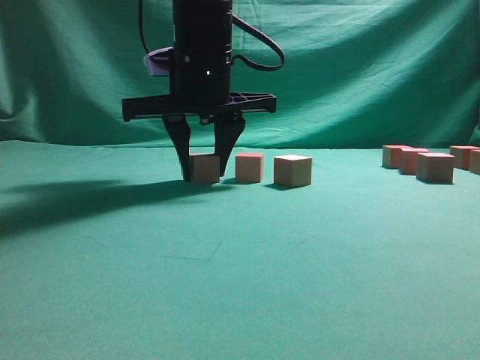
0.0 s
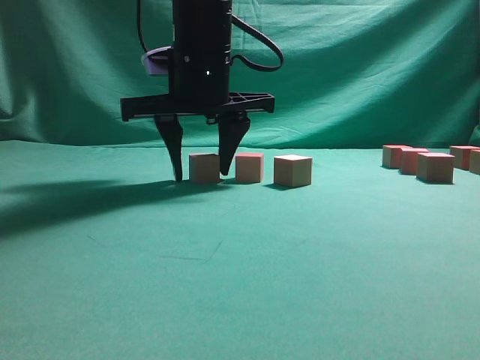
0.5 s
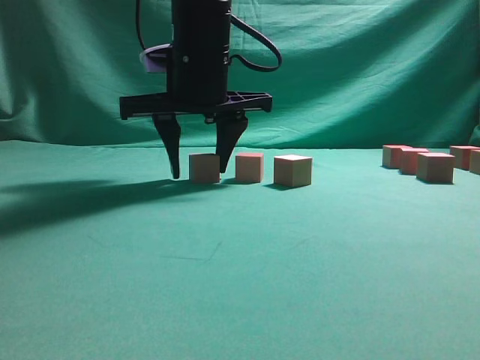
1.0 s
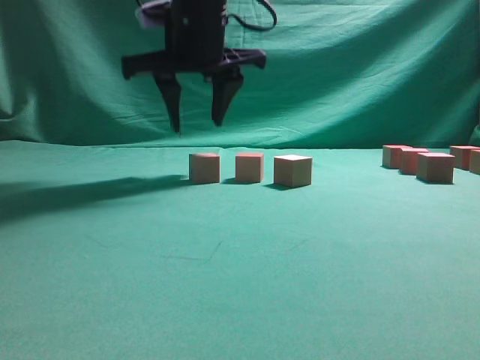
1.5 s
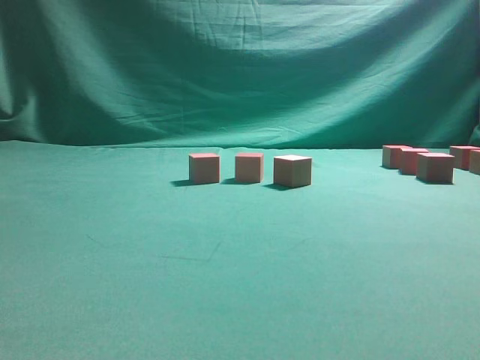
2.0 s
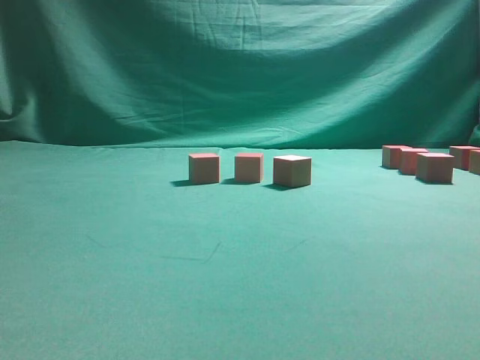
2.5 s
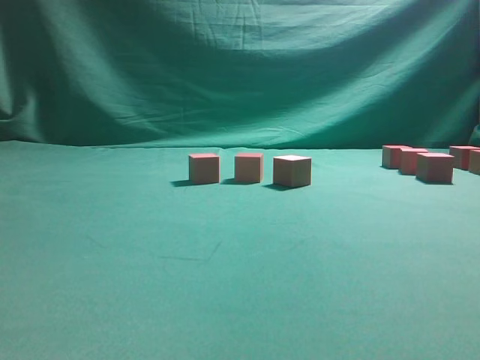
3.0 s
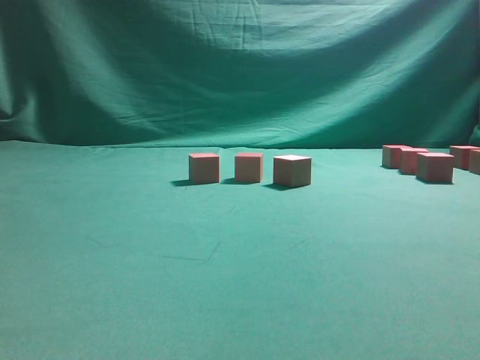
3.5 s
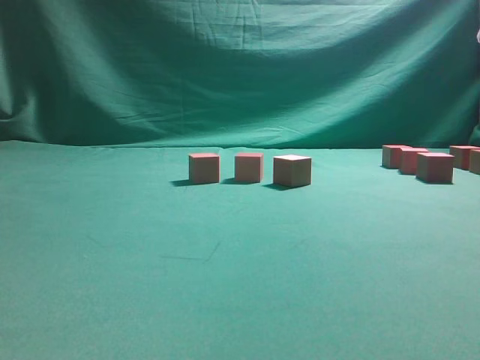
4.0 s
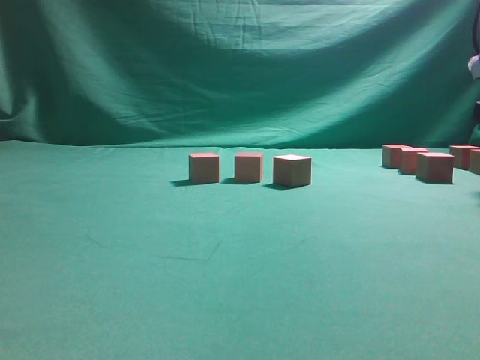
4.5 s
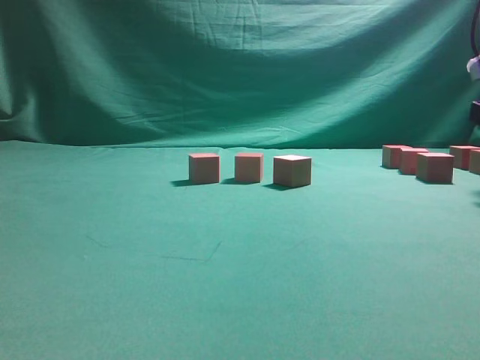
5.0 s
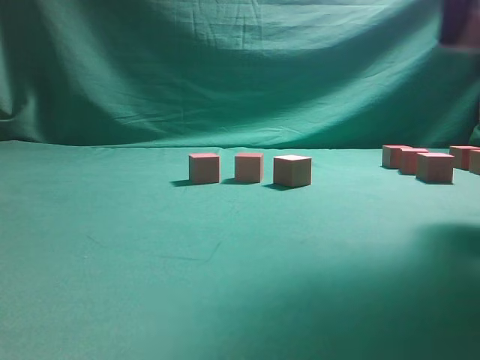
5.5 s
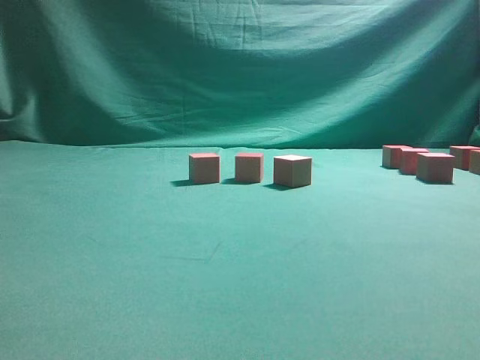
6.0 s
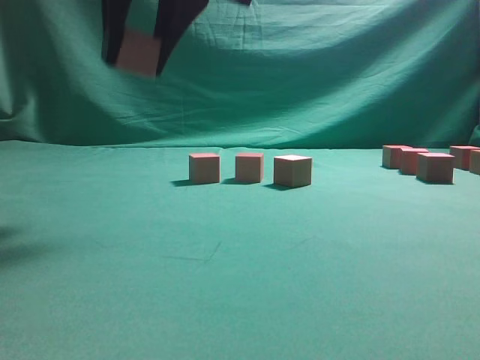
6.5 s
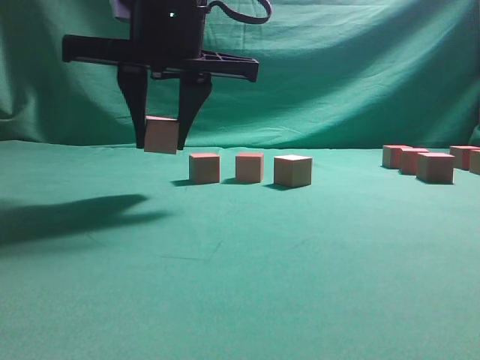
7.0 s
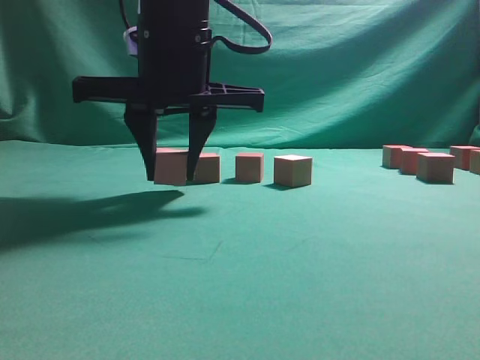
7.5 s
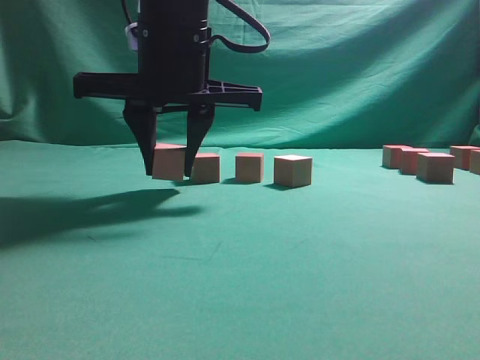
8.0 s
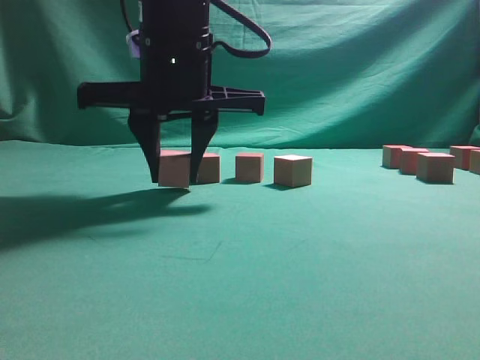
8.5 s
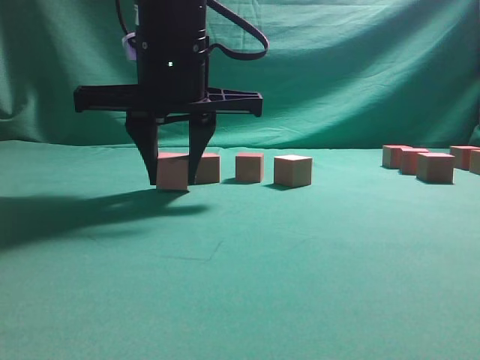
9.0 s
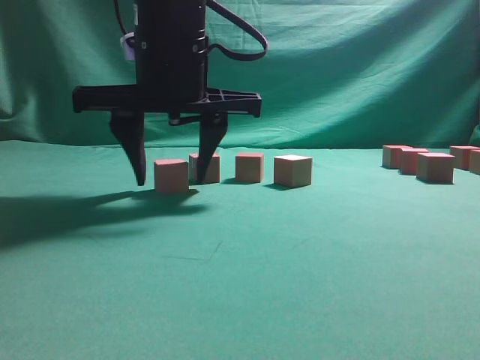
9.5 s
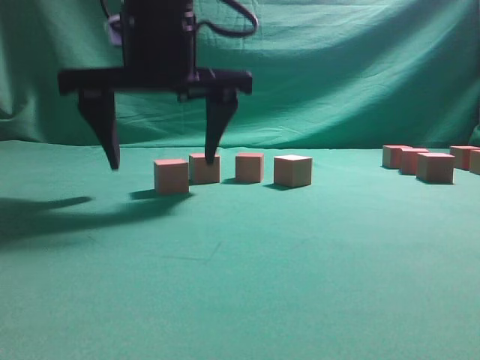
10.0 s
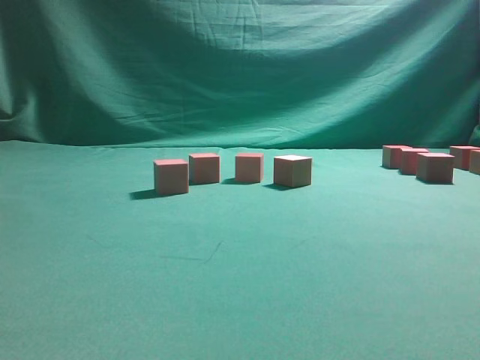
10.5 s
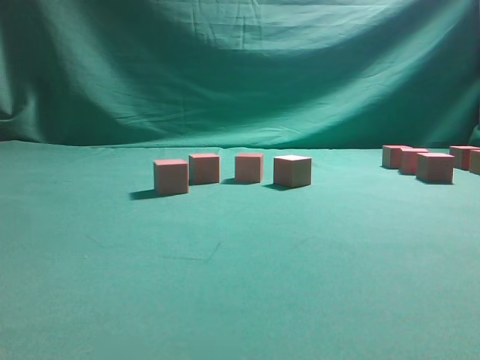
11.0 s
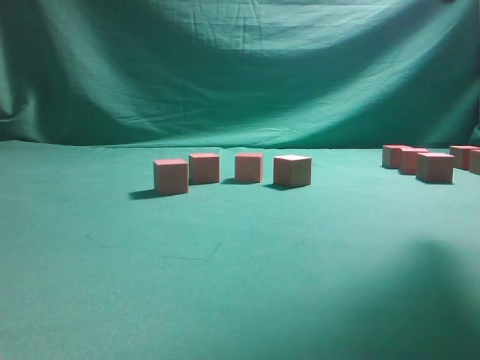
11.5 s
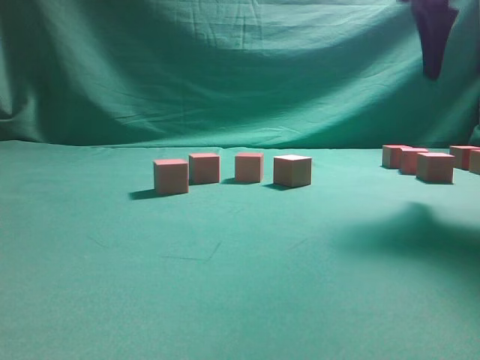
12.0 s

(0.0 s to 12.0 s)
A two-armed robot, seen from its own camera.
Task of the whole recording: pick up the multiple cubes in two columns one by one and place them in another position on the table.
Step, 5.5 s - 10.0 s: Place the block at the correct position to assemble the letter S.
0.0 s - 2.0 s: The right gripper shifts roughly 20 cm upward.
6.0 s - 8.0 s: The right gripper is displaced downward, forward and to the left by about 20 cm.
8.0 s - 10.0 s: The right gripper opens its fingers.
10.0 s - 12.0 s: The right gripper travels to the right by roughly 30 cm.

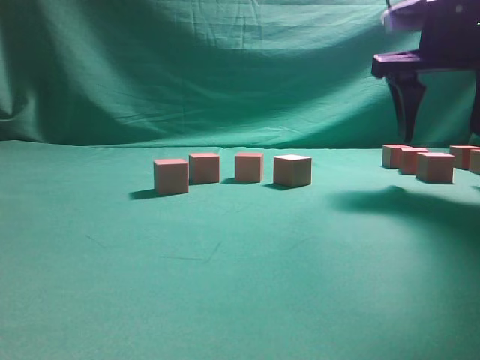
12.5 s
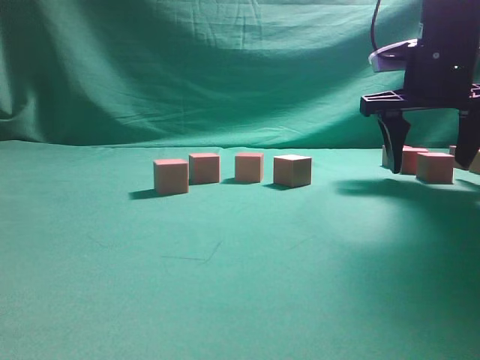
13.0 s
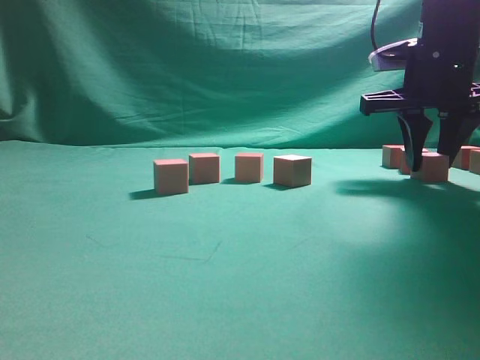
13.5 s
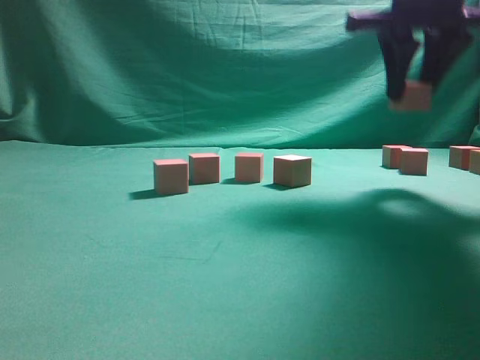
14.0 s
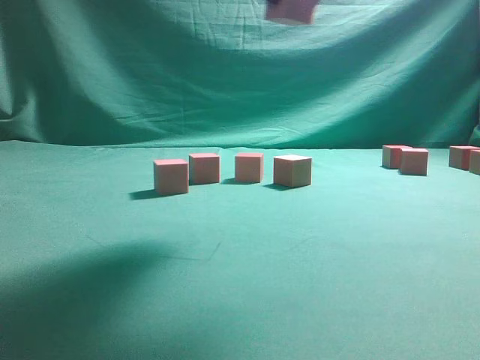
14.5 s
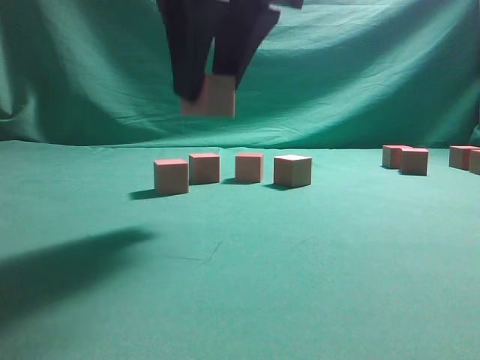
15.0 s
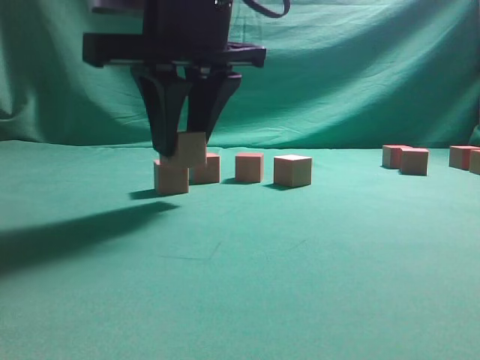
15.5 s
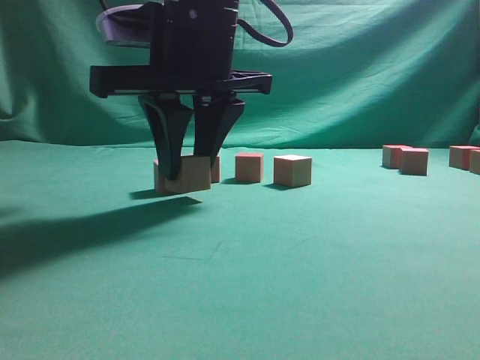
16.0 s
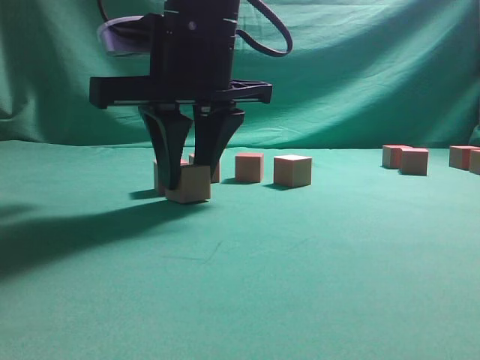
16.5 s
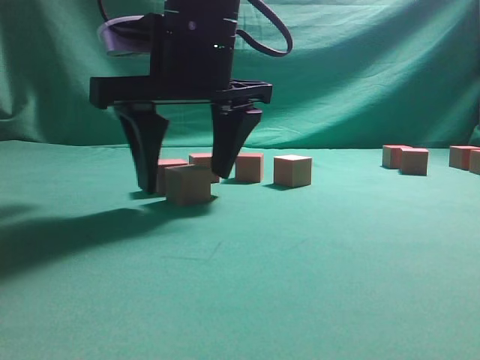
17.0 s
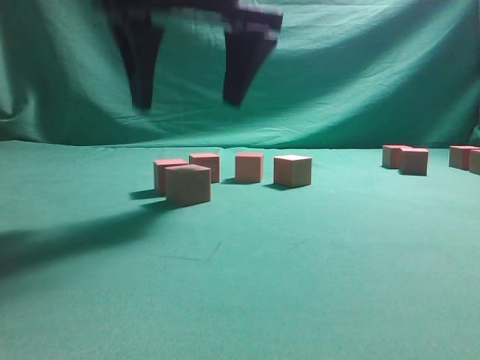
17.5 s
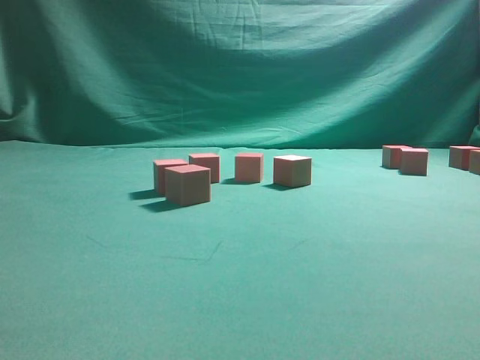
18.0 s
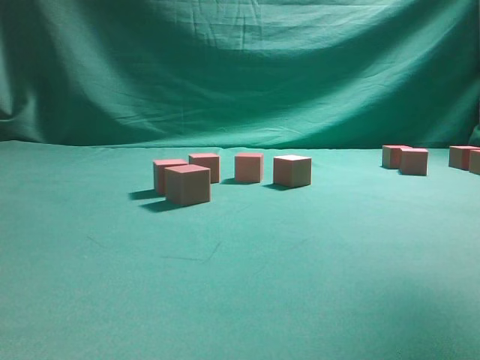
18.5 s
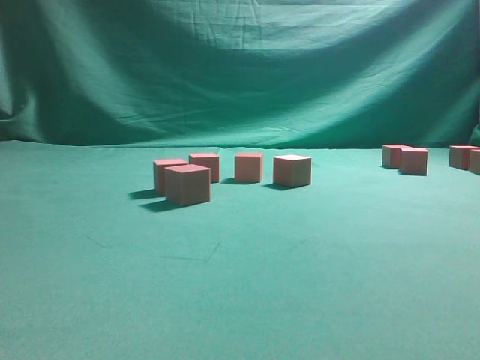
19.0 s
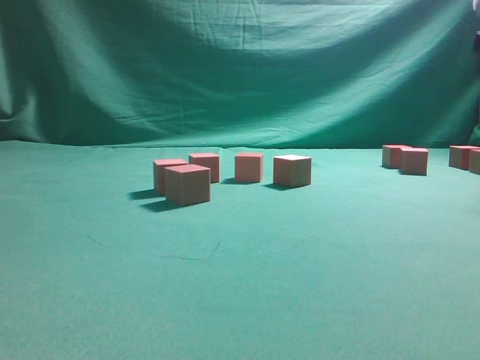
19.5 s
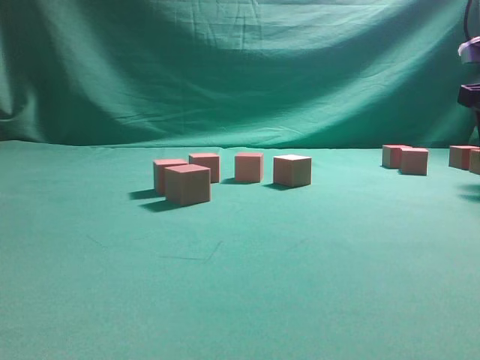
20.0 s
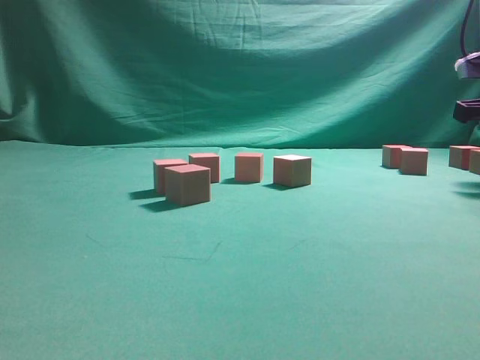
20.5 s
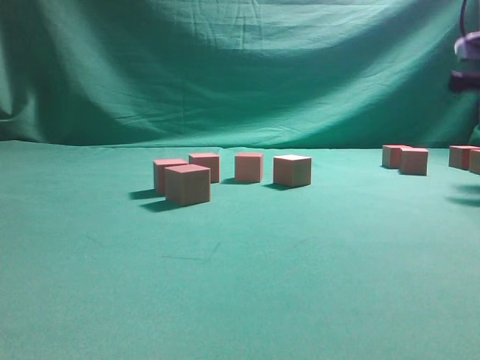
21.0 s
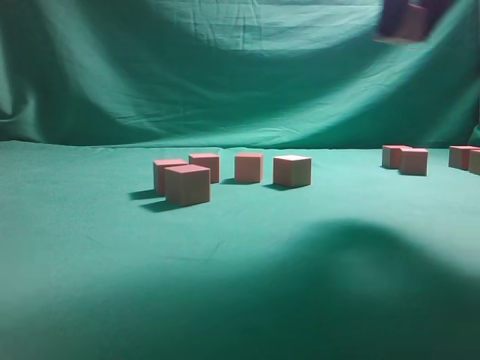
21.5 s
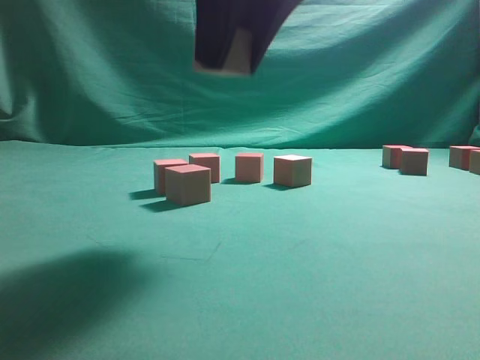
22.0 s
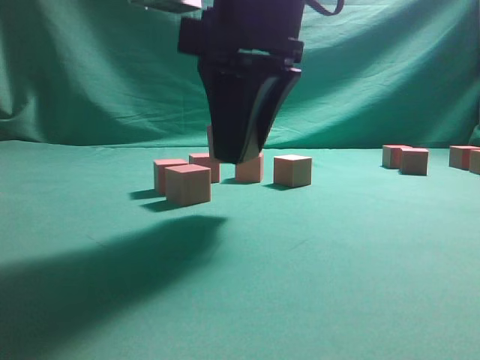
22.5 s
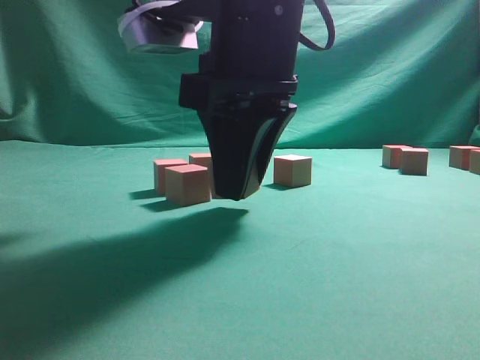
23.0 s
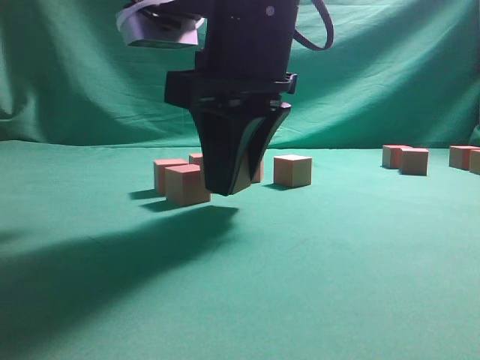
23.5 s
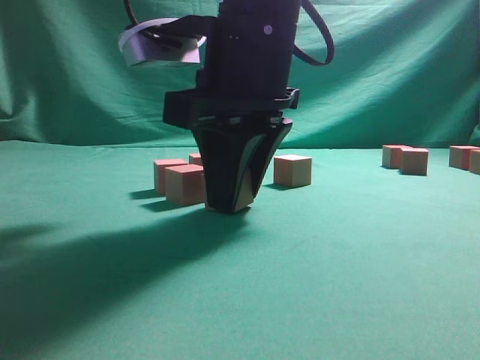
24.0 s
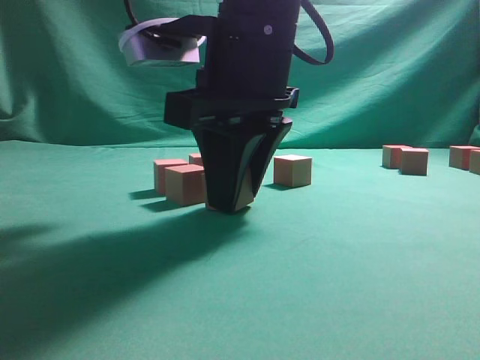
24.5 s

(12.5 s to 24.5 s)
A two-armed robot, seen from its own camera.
Task of the whole recording: pick up the multiple cubes in two columns one by one and place them in another position on the table.
Step, 14.0 s - 17.5 s: Place the block at the correct position to assemble the letter S.
Step, 18.0 s - 20.5 s: Pick up the block on the table.
12.5 s - 14.5 s: The right gripper heads to the left, upward and backward, covering some 20 cm, and closes up.
14.5 s - 16.5 s: The right gripper heads downward and to the left, covering roughly 15 cm.
16.5 s - 18.5 s: The right gripper moves to the right and upward, approximately 35 cm, and opens.
18.5 s - 20.5 s: The right gripper moves downward, roughly 25 cm, and closes.
20.5 s - 22.5 s: The right gripper heads to the left and backward, covering approximately 30 cm.
22.5 s - 24.5 s: The grippers make only small movements.

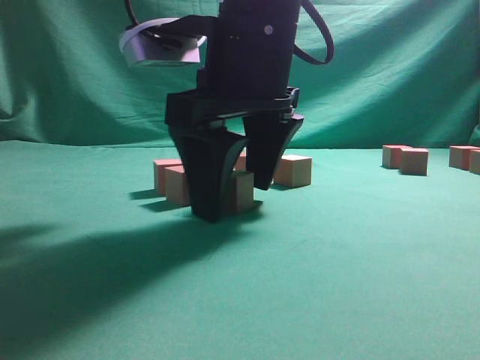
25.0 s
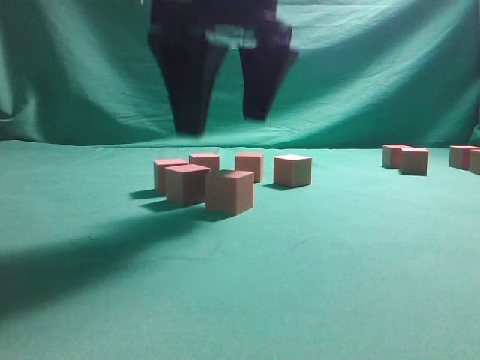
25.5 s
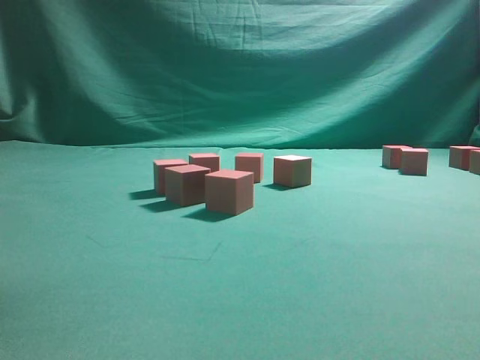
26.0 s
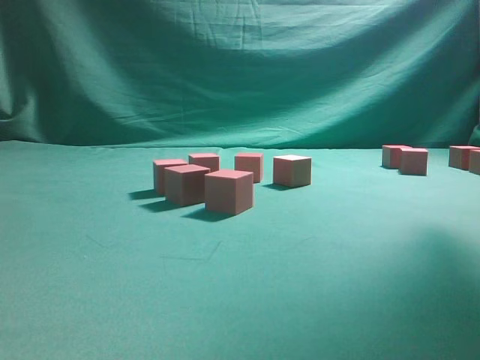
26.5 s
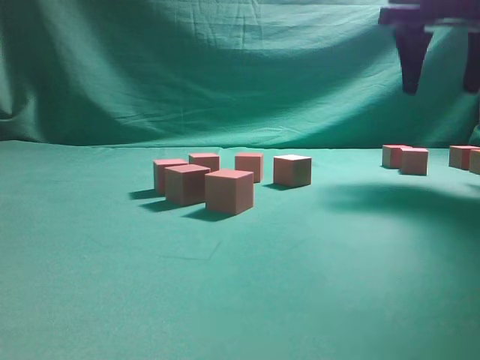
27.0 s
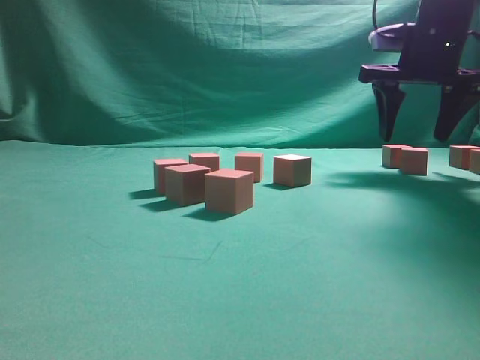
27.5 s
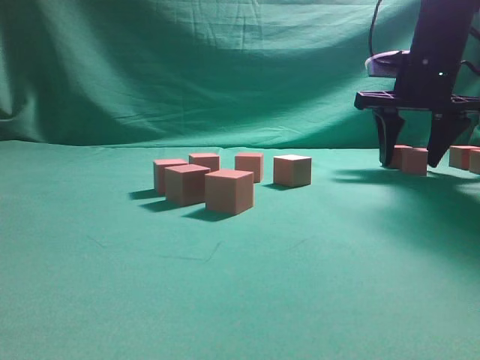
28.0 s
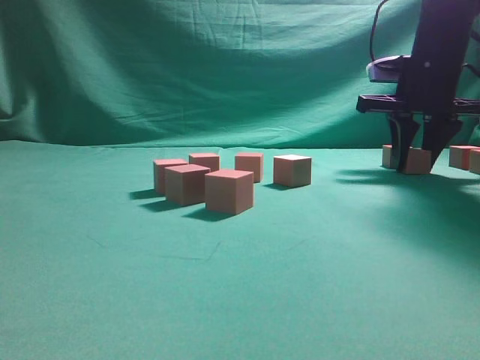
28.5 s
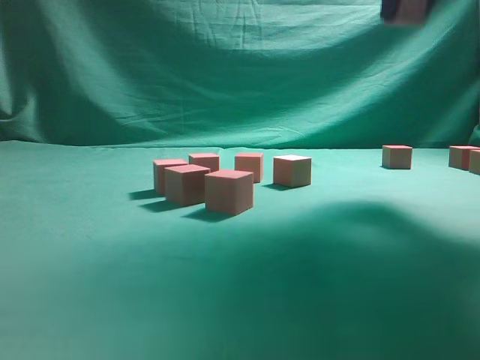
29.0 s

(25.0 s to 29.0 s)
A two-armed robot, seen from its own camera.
Task of the whole recording: pick up the multiple cubes in two columns one by one and place them in another position on the table.
Step, 26.0 s - 28.5 s: Pick up the block on the table.
25.0 s - 27.0 s: The right gripper is displaced to the right, forward and upward by approximately 30 cm.
27.0 s - 29.0 s: The right gripper travels upward and backward by approximately 10 cm, and closes its fingers.
